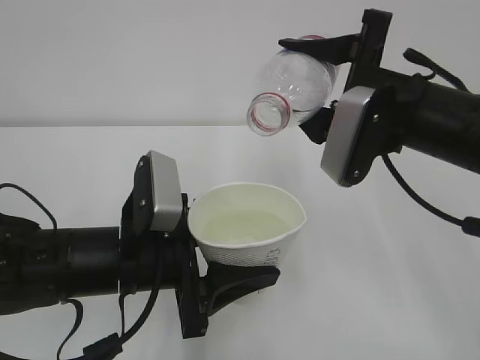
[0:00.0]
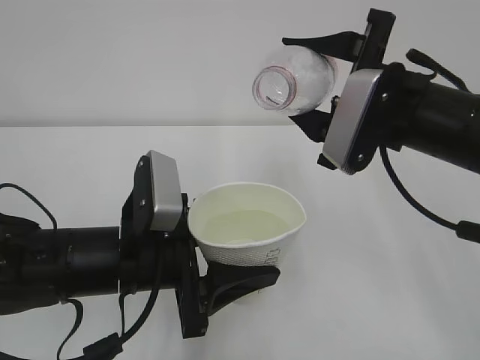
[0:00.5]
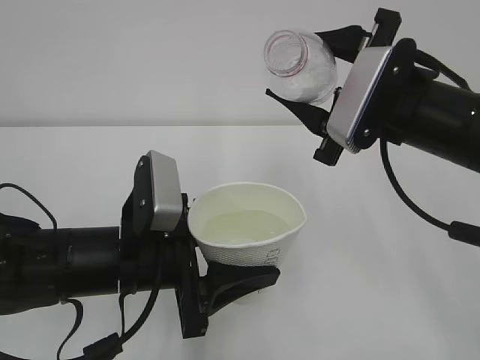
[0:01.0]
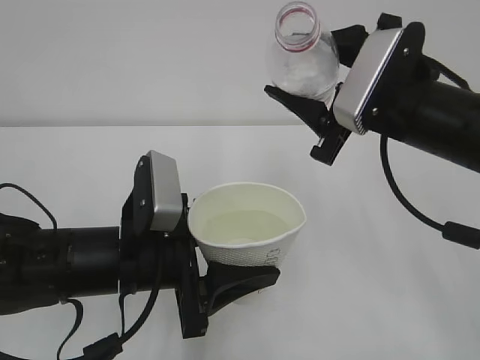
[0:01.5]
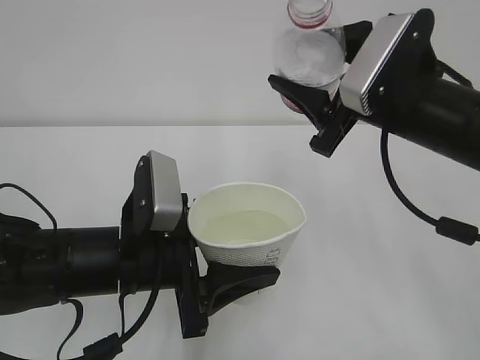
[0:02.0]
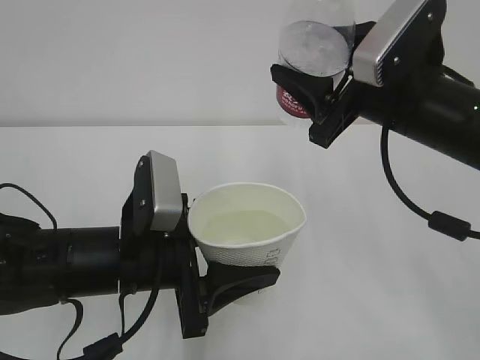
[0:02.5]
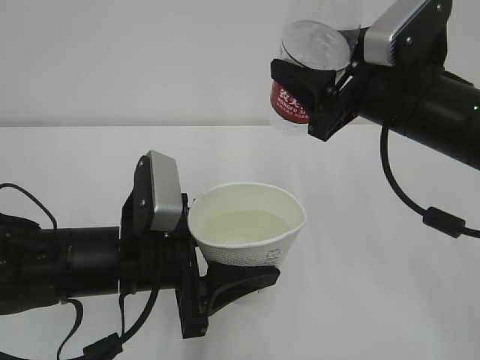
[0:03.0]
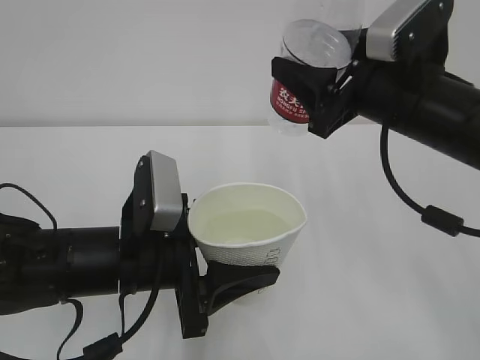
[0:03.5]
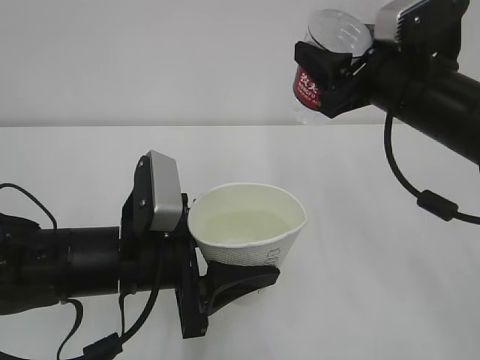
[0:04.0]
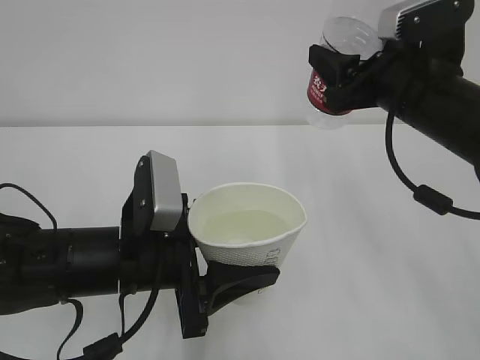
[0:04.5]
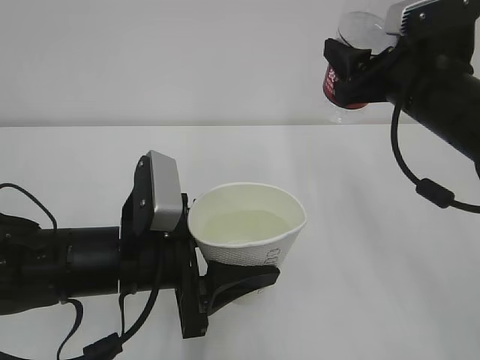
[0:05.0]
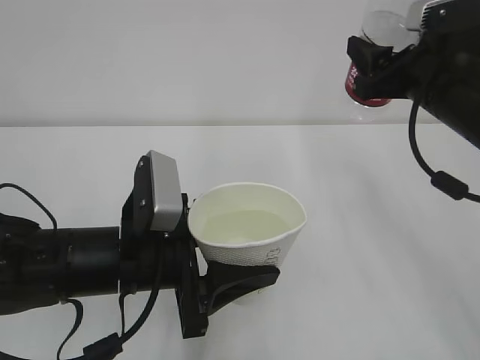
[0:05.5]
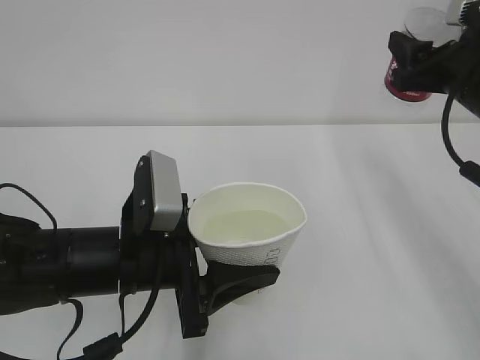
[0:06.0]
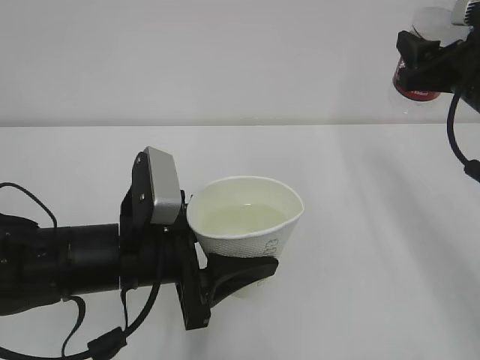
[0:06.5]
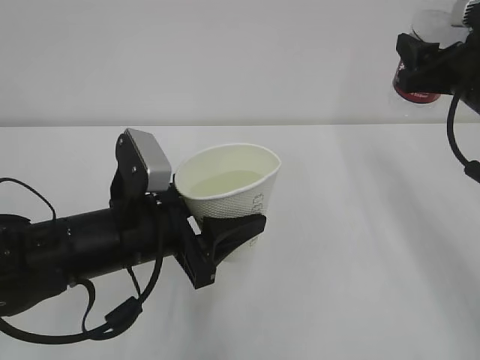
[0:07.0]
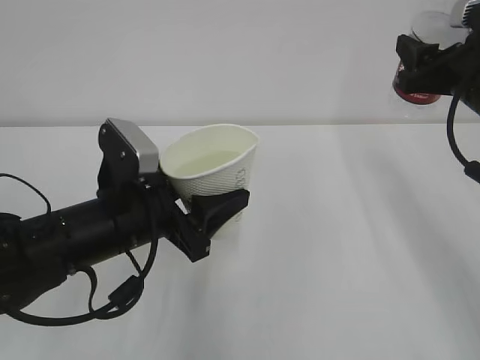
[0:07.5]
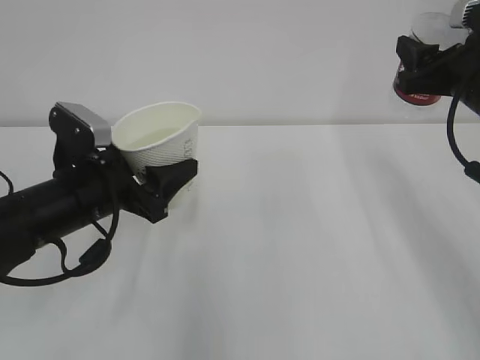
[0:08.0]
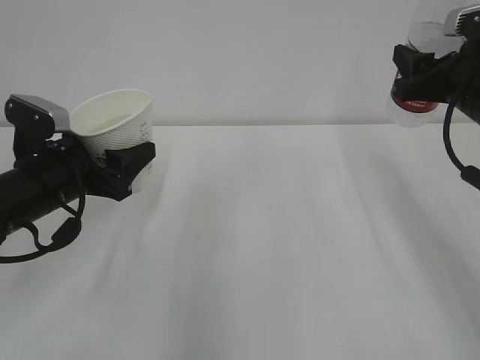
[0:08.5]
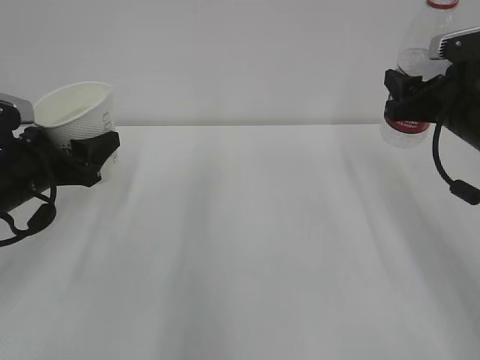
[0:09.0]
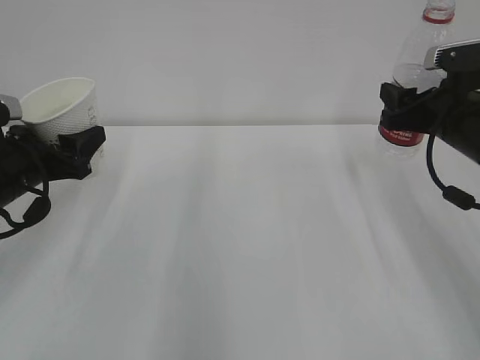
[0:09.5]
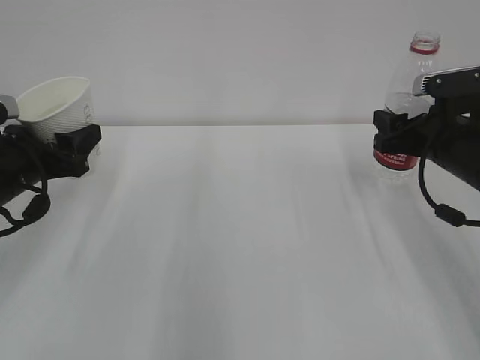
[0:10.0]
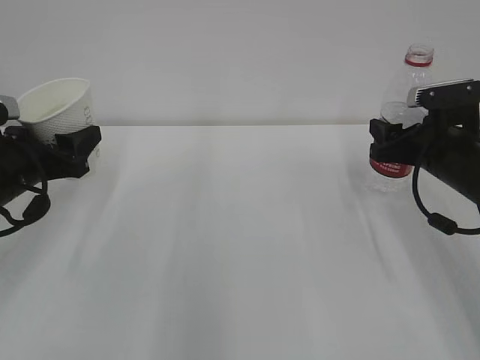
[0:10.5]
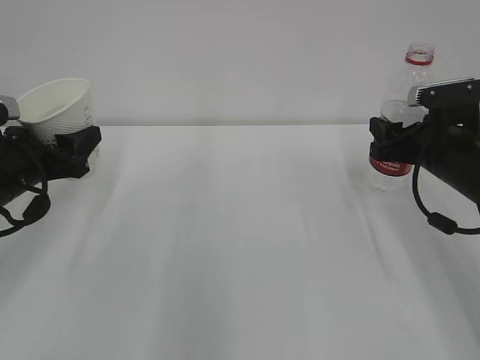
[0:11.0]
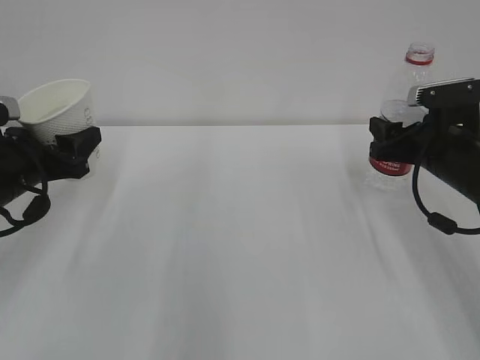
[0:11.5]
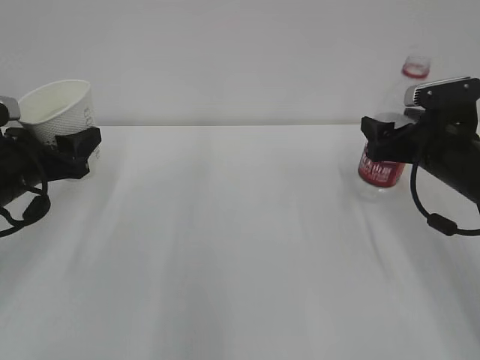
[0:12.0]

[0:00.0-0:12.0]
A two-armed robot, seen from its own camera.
0:04.0 to 0:06.0: The right gripper heads to the right, covering some 10 cm.
0:06.0 to 0:08.0: The left gripper shifts some 10 cm to the left and forward.
0:08.0 to 0:10.0: The right gripper heads downward, covering approximately 10 cm; the left gripper is displaced to the left by approximately 10 cm.
0:10.0 to 0:12.0: The right gripper opens.

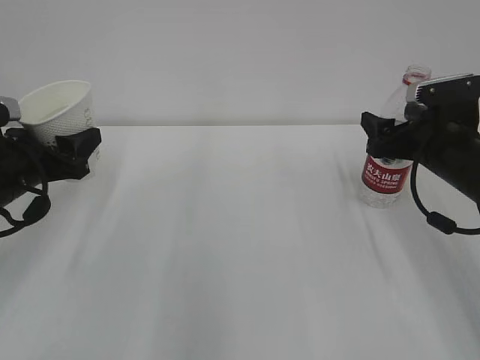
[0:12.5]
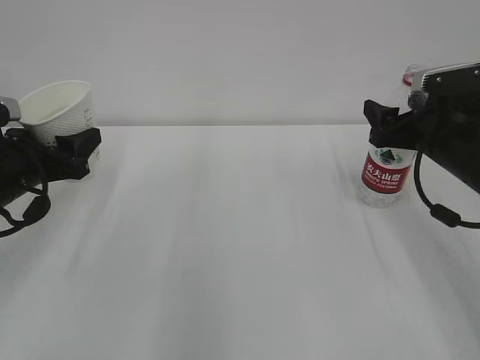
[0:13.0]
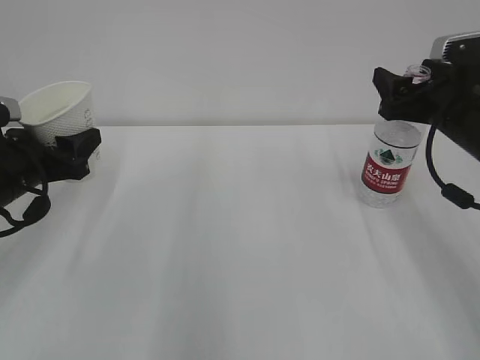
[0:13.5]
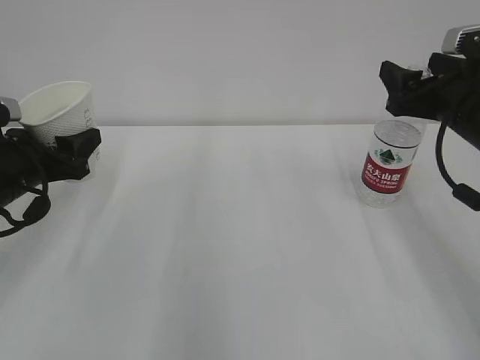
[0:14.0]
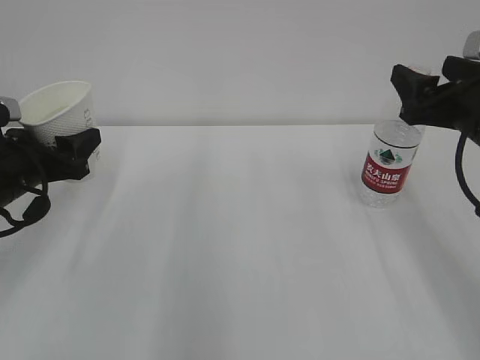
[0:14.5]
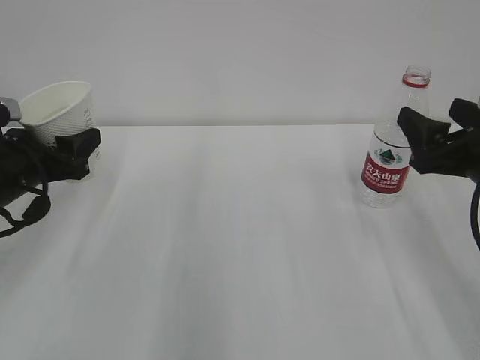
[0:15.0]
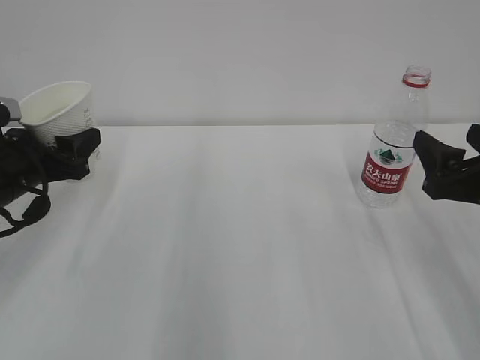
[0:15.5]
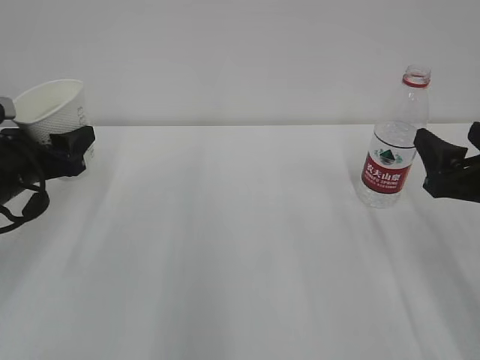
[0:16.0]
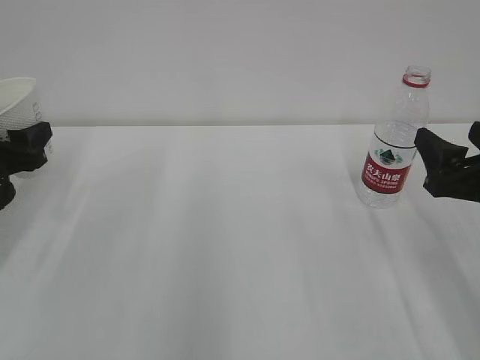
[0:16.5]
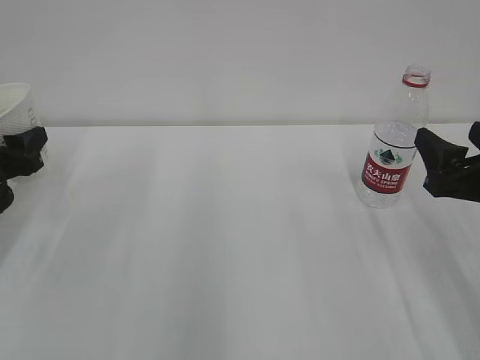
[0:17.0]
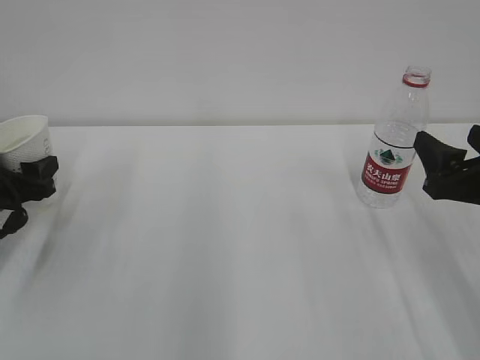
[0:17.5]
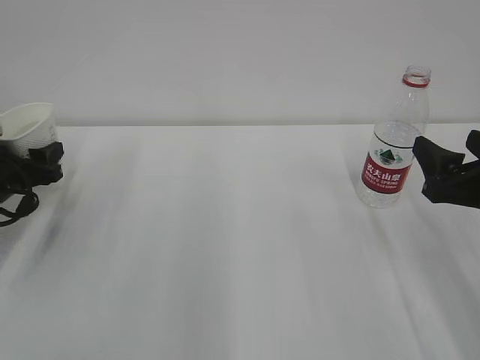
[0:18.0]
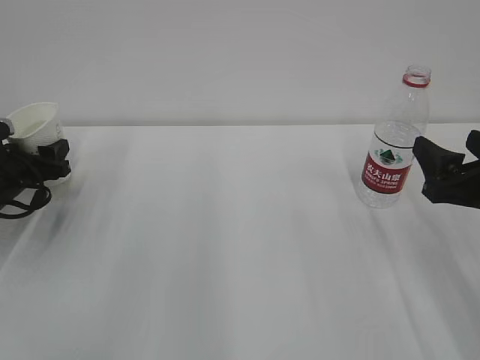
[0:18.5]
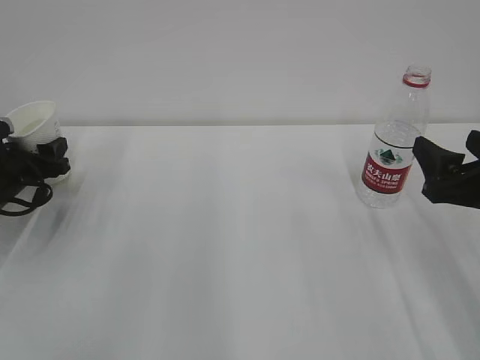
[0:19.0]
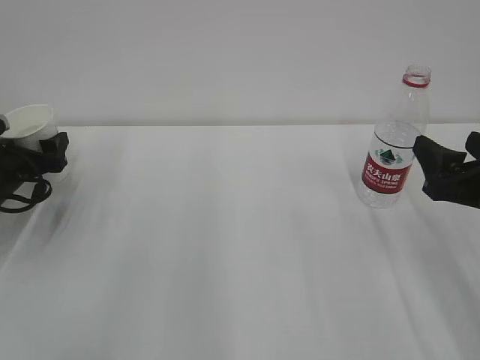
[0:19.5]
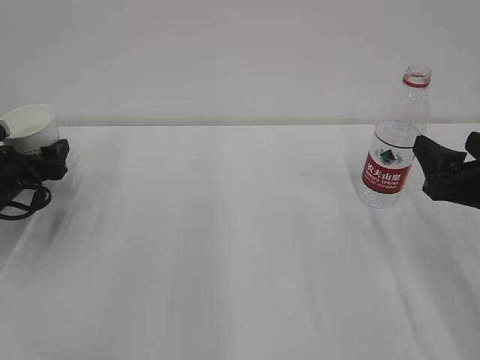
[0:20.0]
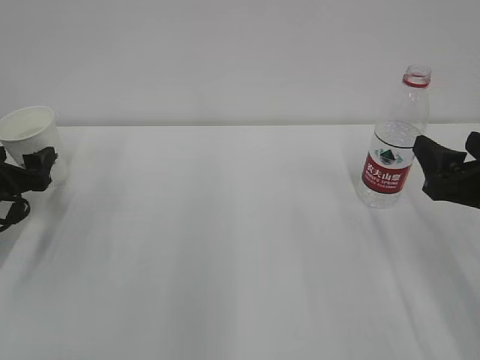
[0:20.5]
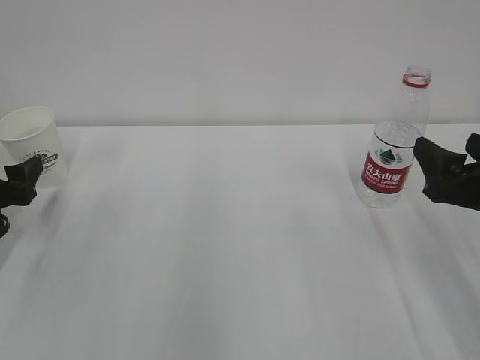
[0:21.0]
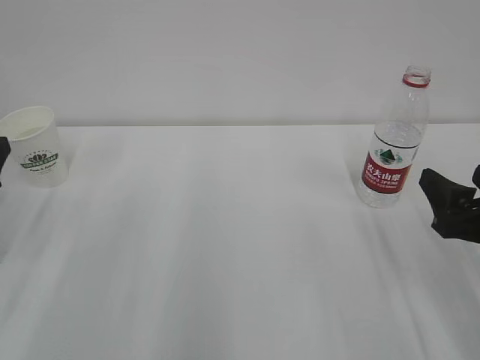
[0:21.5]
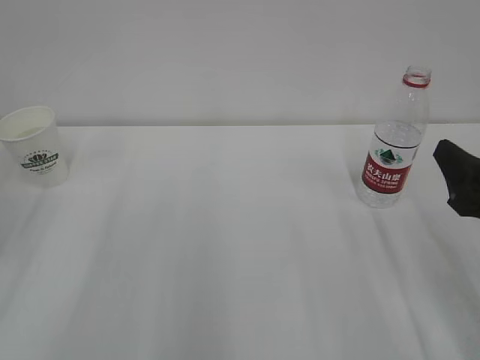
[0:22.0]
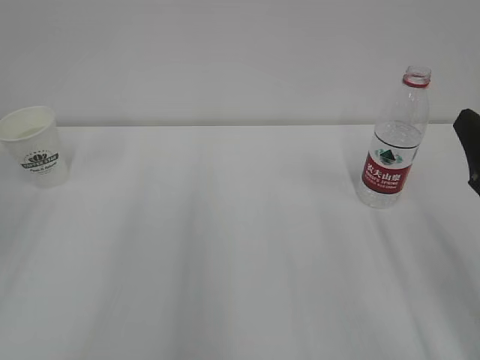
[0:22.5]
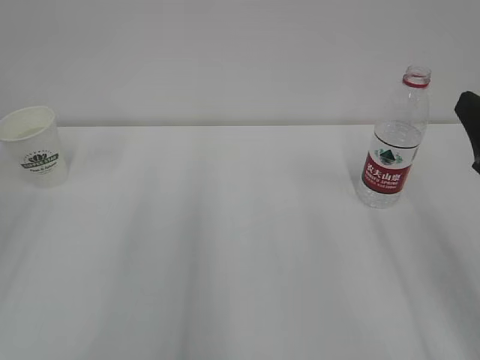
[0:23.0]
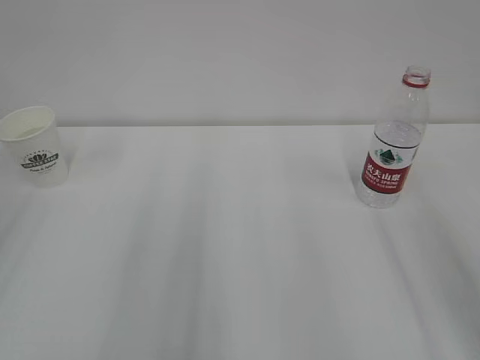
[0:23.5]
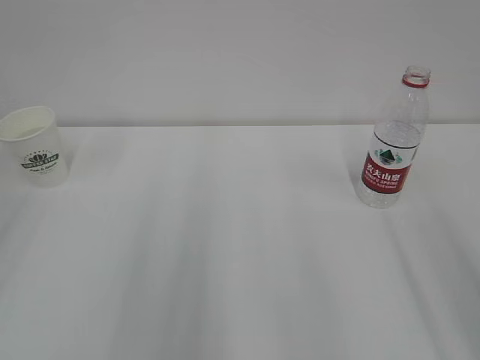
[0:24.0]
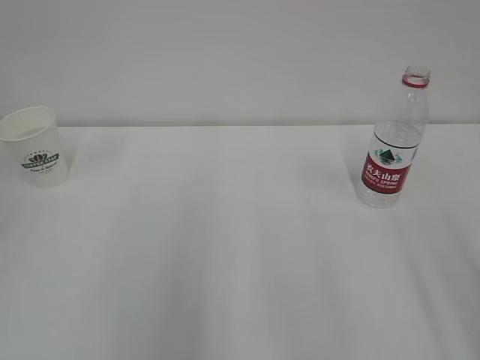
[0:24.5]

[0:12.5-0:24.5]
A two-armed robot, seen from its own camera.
0:12.5 to 0:14.5: The right gripper heads upward, covering approximately 5 cm.
0:14.5 to 0:16.5: The right gripper goes roughly 5 cm backward. The left gripper goes approximately 5 cm to the left.
0:16.5 to 0:18.5: The left gripper heads downward and forward, covering approximately 10 cm.
0:18.5 to 0:20.5: The left gripper opens.
0:20.5 to 0:22.5: The right gripper changes place by about 5 cm. Meanwhile the left gripper travels upward and backward by about 20 cm.
0:22.5 to 0:24.5: The right gripper heads backward and upward, covering approximately 10 cm.

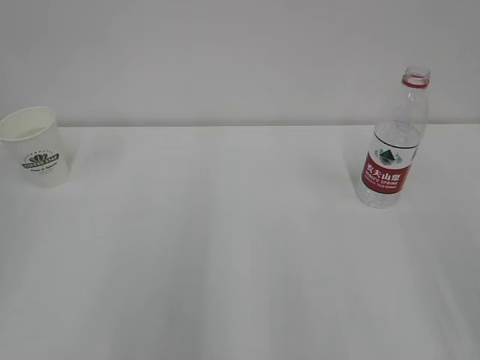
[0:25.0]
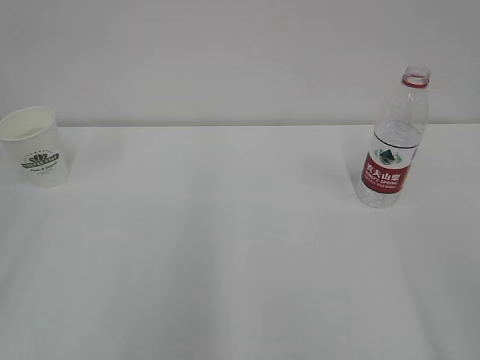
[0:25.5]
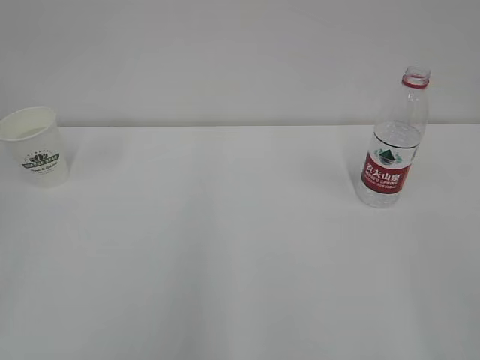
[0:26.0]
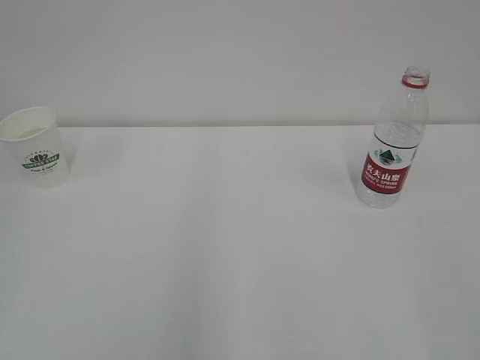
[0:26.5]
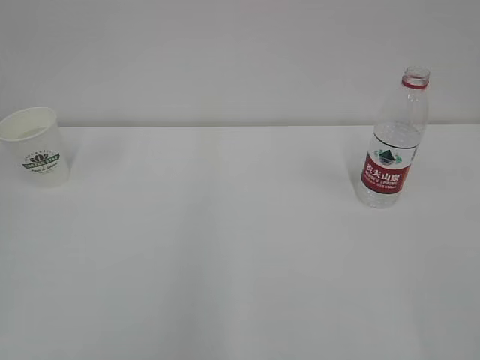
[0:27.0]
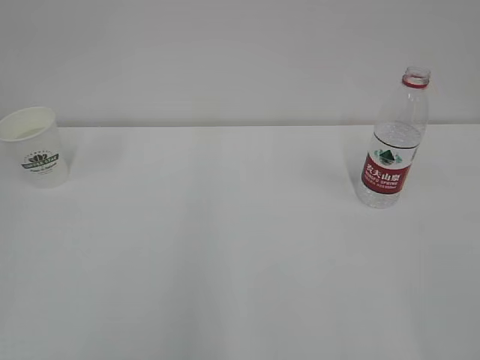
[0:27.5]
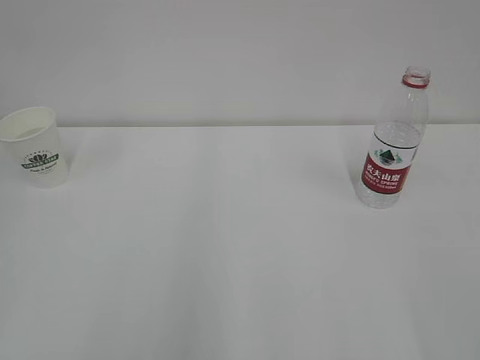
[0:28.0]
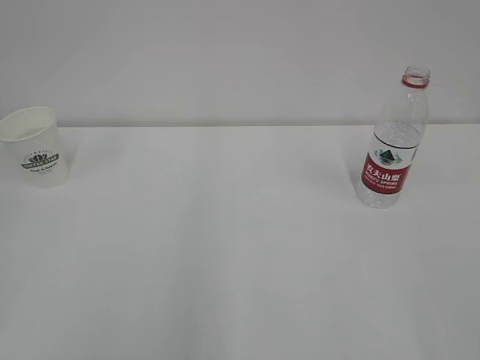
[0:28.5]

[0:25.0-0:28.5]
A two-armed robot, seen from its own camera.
0:27.0 to 0:28.5: Neither gripper changes place.
